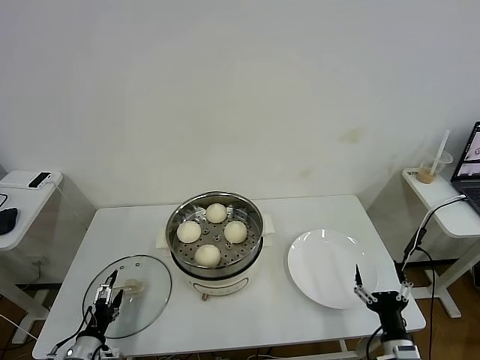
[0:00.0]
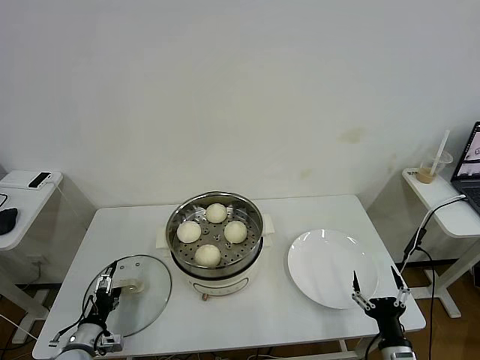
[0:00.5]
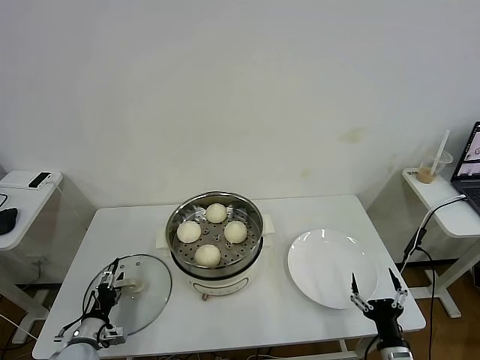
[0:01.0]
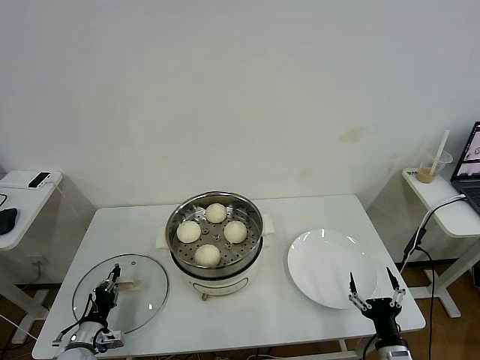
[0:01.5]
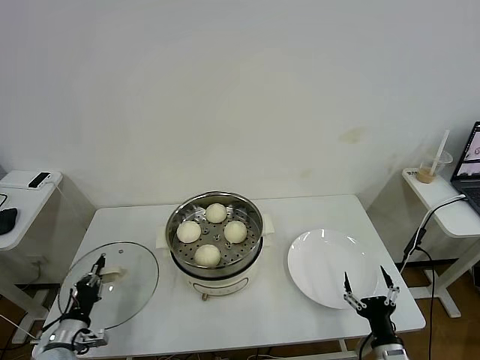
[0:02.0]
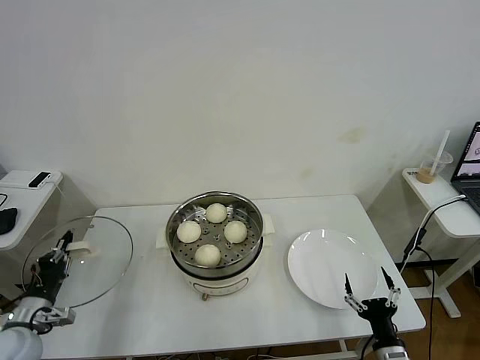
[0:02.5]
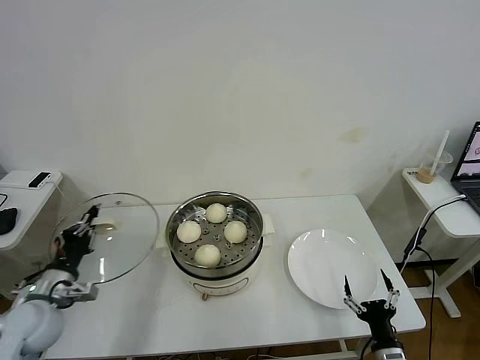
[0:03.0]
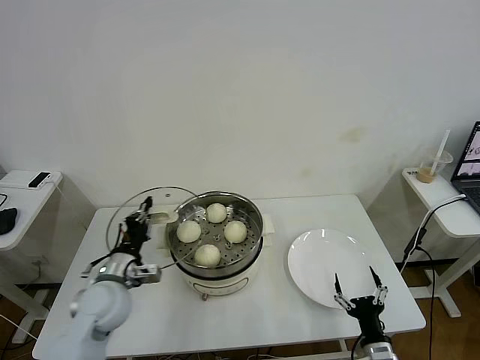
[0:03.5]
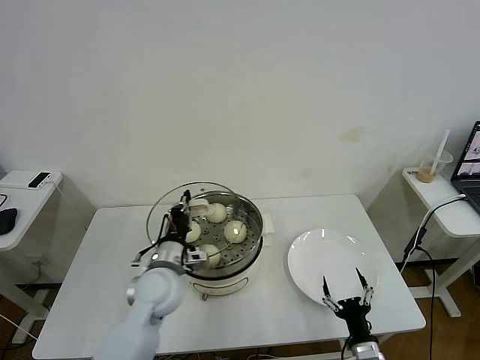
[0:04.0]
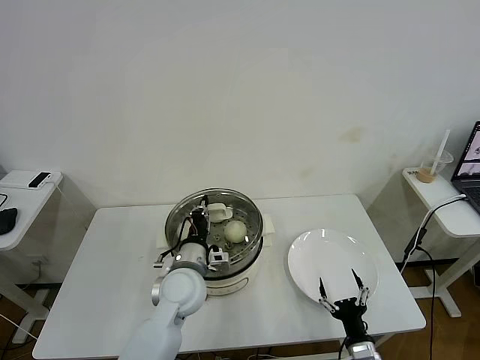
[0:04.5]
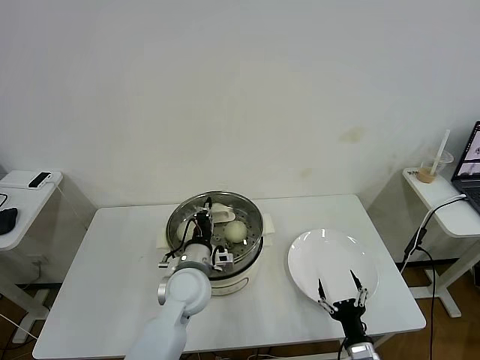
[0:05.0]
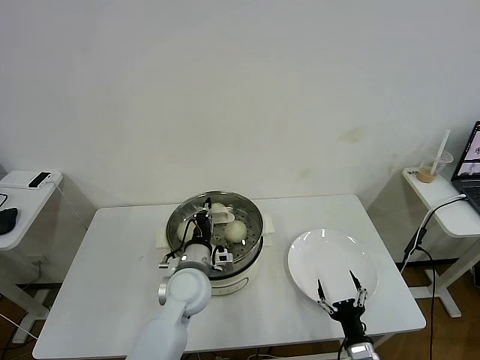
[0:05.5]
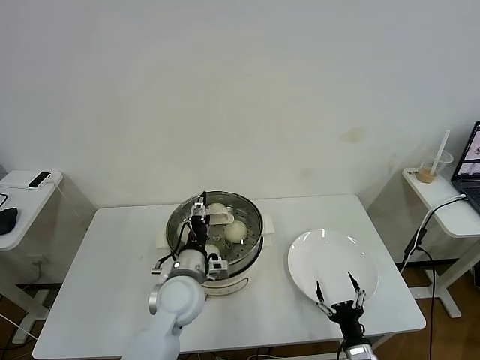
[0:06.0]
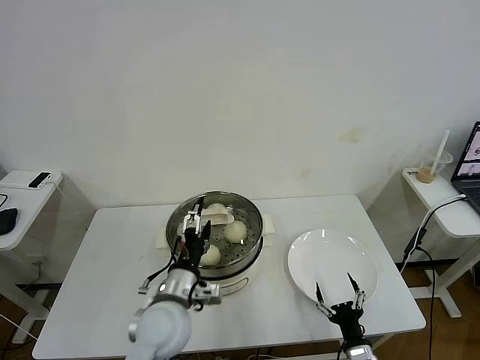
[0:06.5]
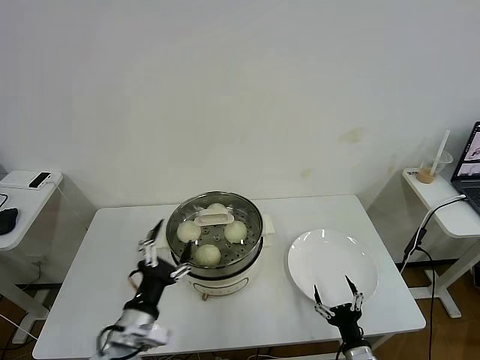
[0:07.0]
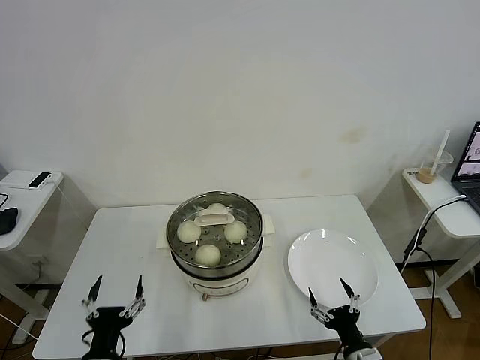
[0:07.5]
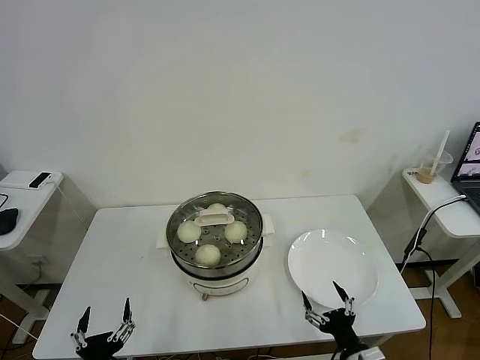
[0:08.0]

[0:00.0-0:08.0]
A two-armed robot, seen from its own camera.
Task of the whole recording: take steamed baozi put them in steamer then cover it.
Step, 0:02.0 to 0:06.5: Place the pot lid on the steamer with left gripper.
0:00.0 to 0:02.0: The left gripper closes.
0:02.0 to 0:04.0: The left gripper moves to the right, upward and forward, some 30 cm.
0:04.0 to 0:06.0: The left gripper heads to the right, covering roughly 5 cm, and opens its fingers.
0:06.0 to 0:08.0: The right gripper shifts about 5 cm upward. The left gripper moves backward and to the left, about 30 cm, and opens its fingers.
